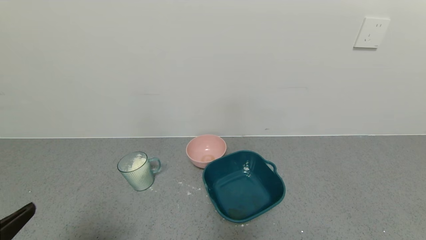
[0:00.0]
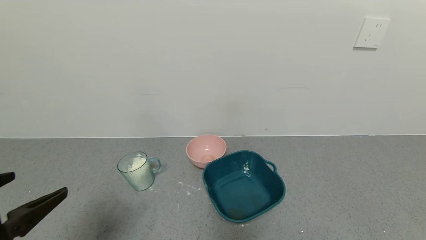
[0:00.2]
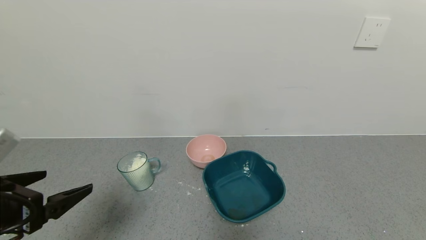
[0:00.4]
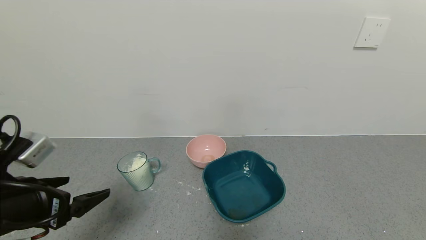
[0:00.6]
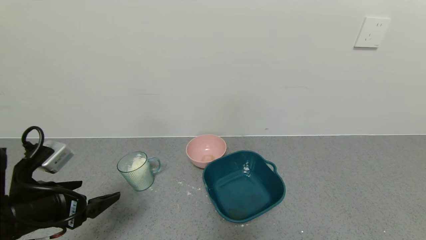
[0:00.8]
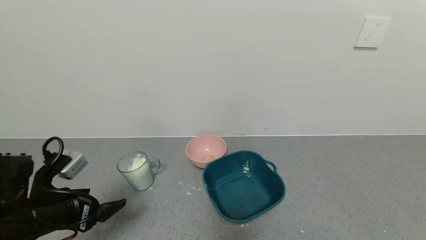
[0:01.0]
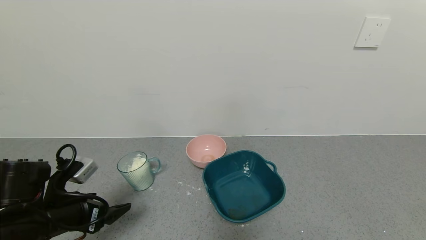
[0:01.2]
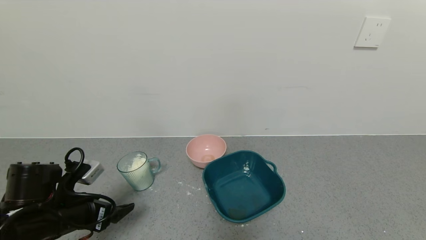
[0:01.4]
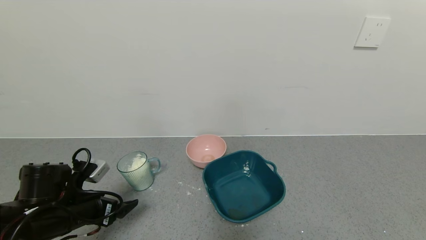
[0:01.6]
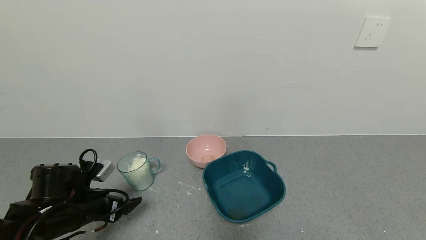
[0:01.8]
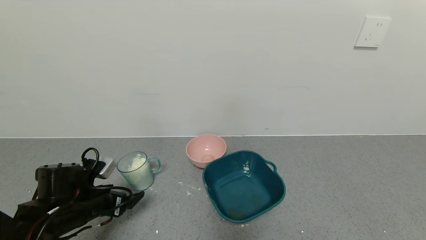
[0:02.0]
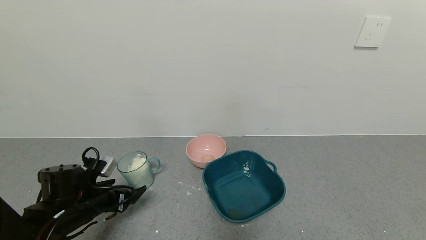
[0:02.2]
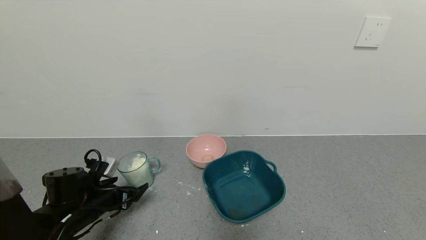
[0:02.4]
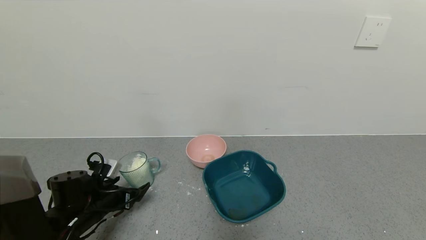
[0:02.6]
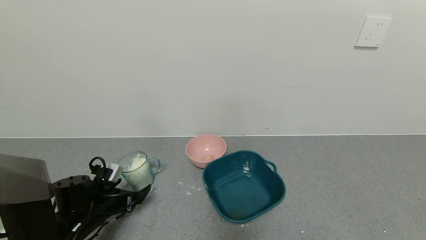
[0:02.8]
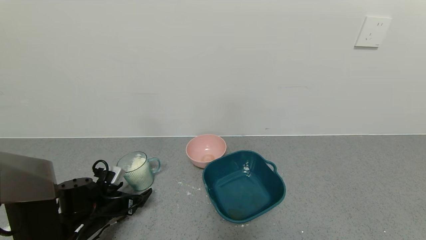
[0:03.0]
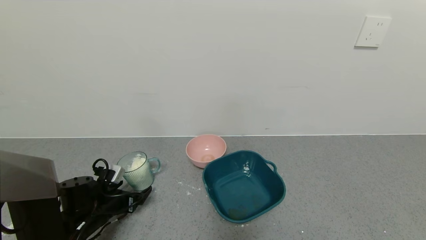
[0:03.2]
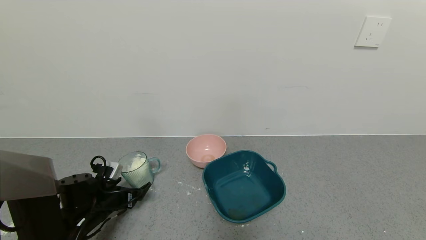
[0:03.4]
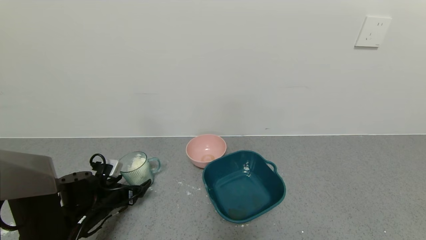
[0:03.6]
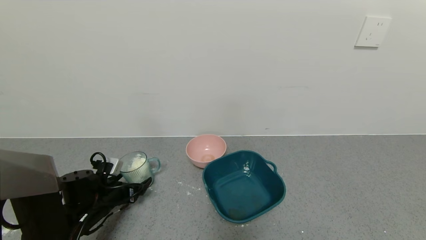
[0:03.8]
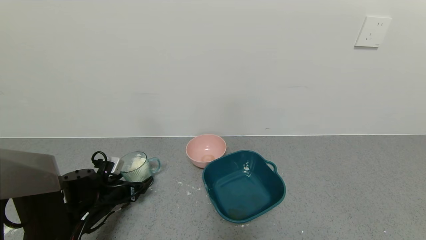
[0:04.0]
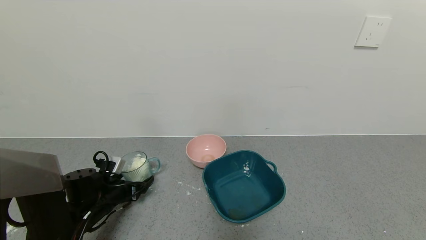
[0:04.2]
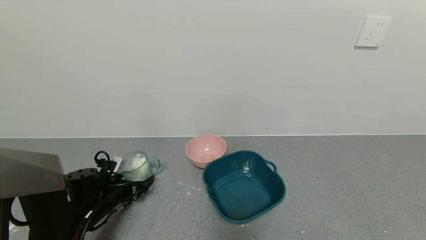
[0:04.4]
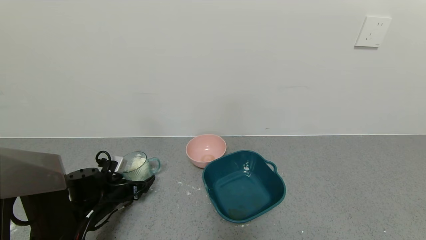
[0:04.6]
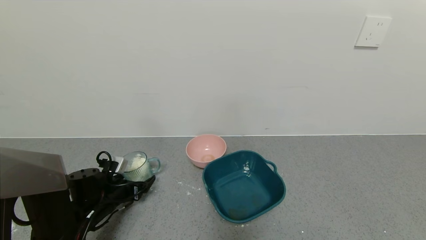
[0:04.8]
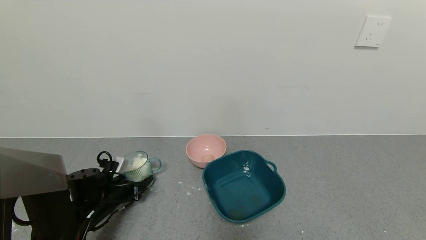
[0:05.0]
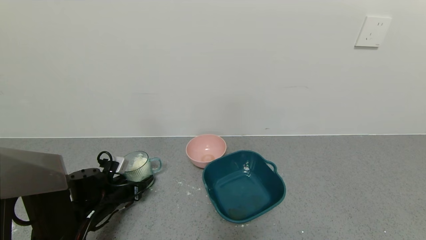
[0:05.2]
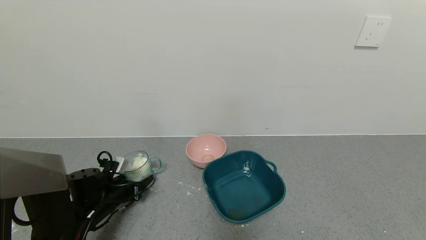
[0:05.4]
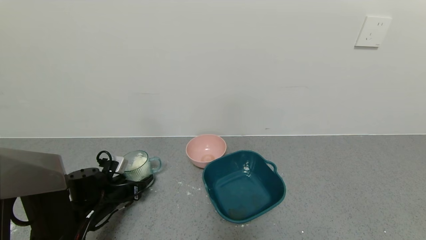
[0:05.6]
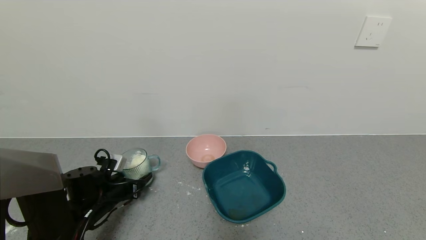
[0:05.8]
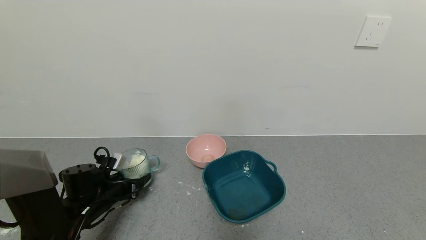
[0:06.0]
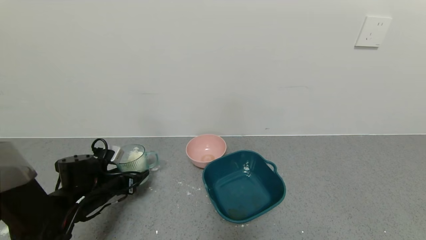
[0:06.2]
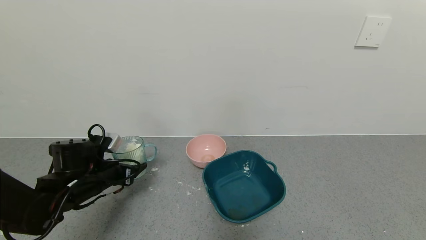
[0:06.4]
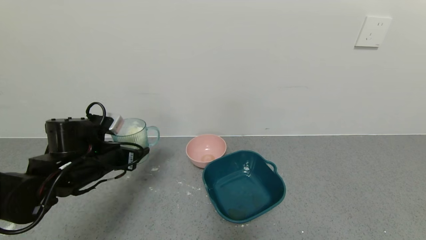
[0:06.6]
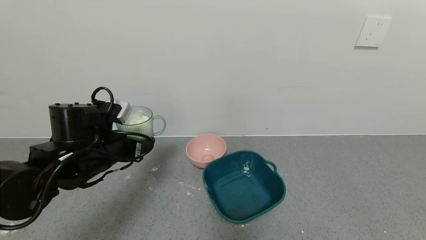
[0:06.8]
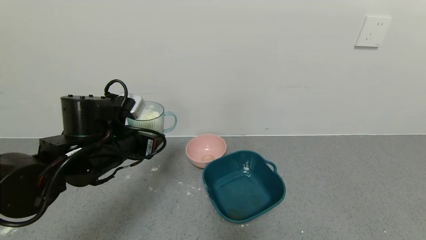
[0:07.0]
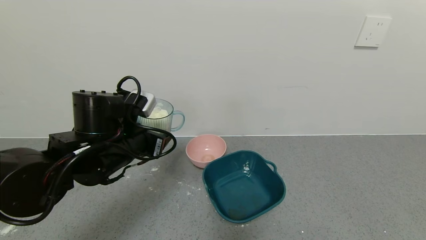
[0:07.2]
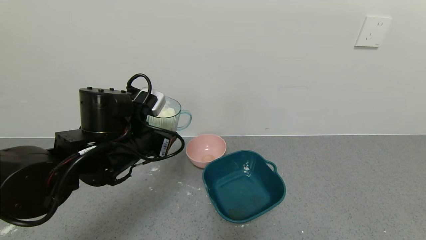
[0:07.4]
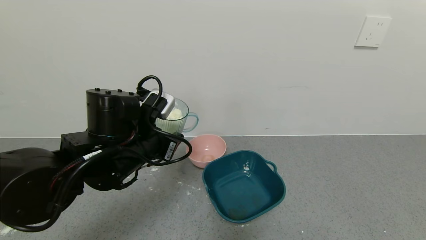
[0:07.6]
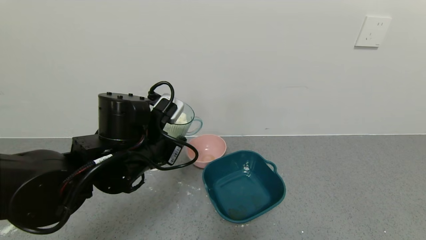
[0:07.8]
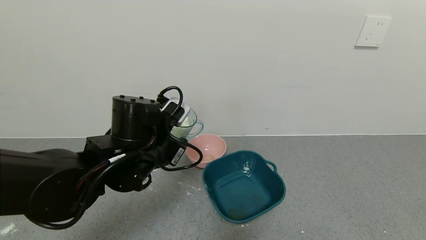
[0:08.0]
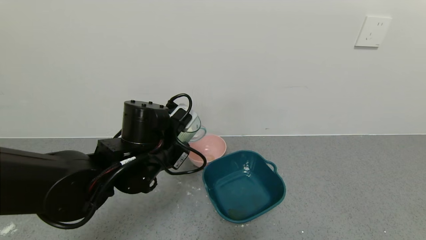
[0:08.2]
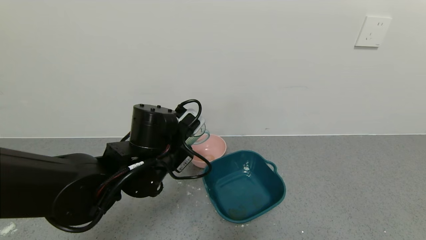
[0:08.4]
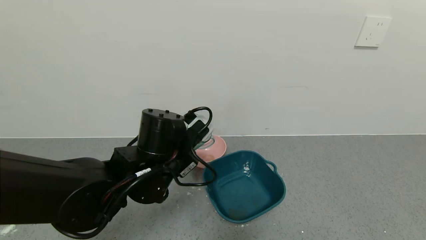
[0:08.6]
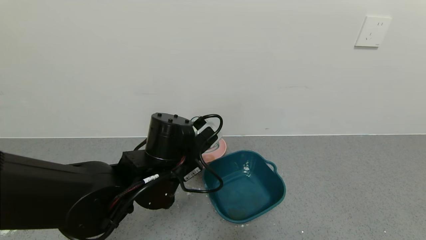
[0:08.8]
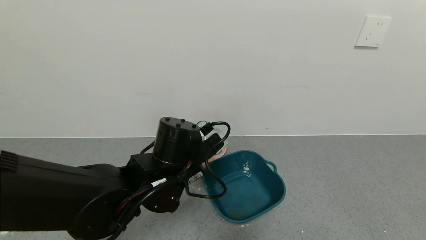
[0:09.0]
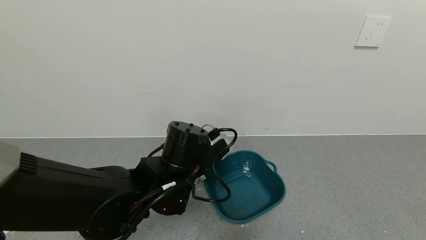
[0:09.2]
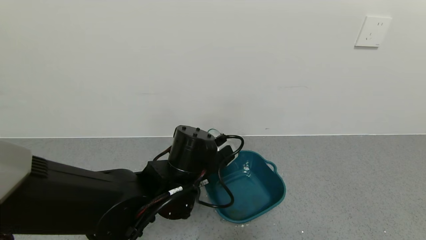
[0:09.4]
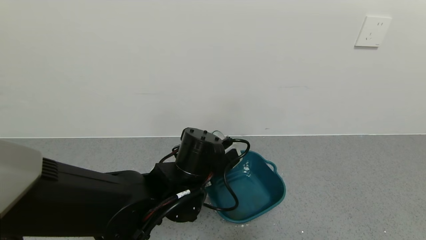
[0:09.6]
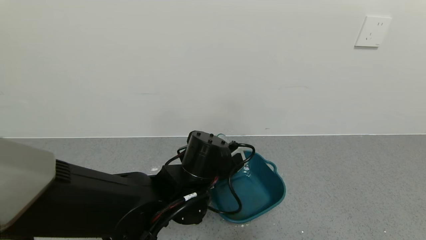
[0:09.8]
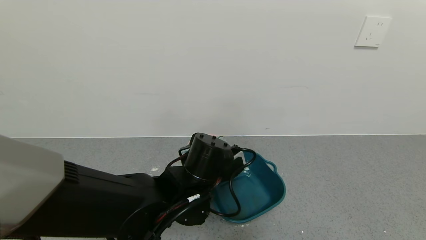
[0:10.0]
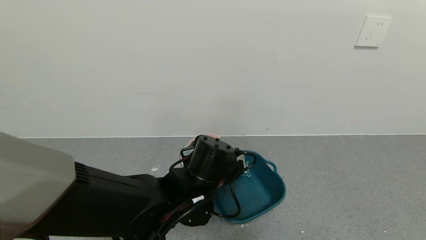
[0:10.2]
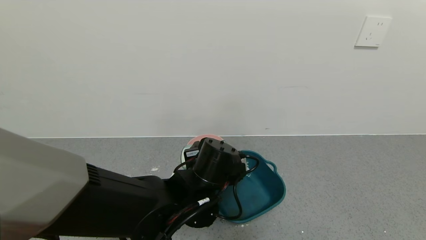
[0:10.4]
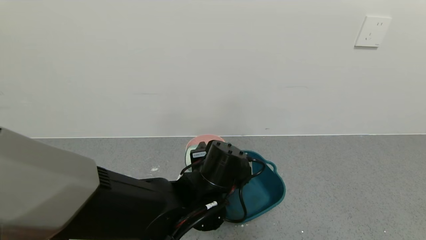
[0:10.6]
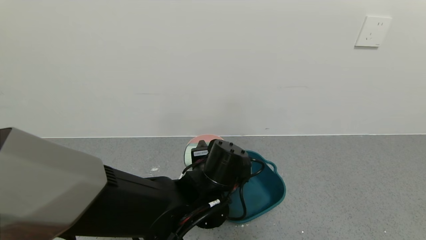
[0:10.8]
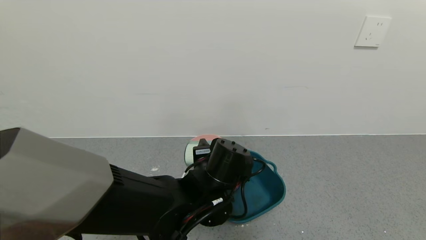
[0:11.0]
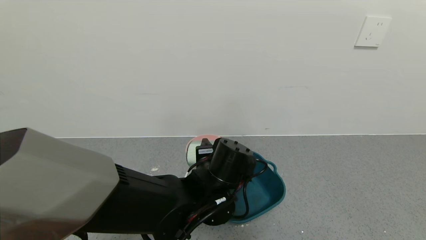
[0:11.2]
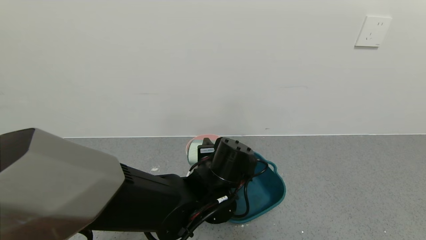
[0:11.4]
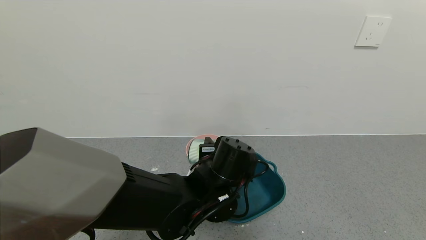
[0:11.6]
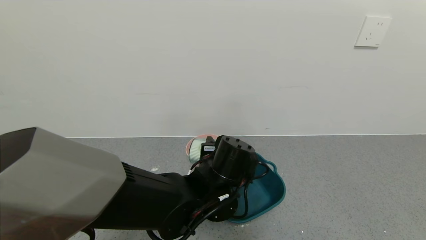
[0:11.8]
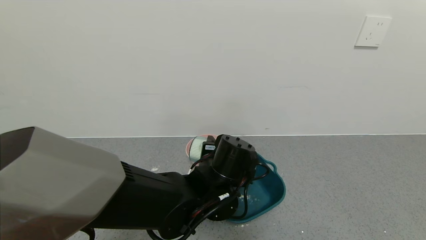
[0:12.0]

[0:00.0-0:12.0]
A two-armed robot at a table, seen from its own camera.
Task of the whole recording: use a gripper to pick up the cup and pour the powder into a bowl or tray.
Step, 0:00.0 to 0:05.2: Grasp the glass of powder with the left gripper.
0:00.0 to 0:01.6: The left gripper moves forward and downward, some 20 cm.
0:01.6 to 0:03.0: The left gripper heads downward, covering about 10 cm.
0:03.0 to 0:04.4: There are only small adjustments of the grippers.
0:04.4 to 0:06.0: The left gripper closes up.
0:06.0 to 0:07.6: The left gripper heads upward and to the right, covering some 25 cm.
0:07.6 to 0:09.0: The left gripper goes roughly 5 cm to the right.
0:09.0 to 0:10.4: The left gripper changes place by about 5 cm.
0:10.4 to 0:12.0: There are only small adjustments of the grippers.

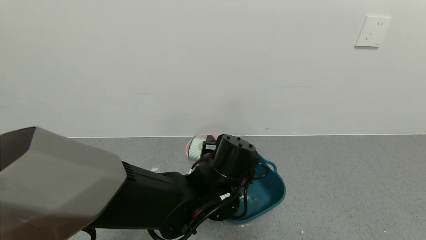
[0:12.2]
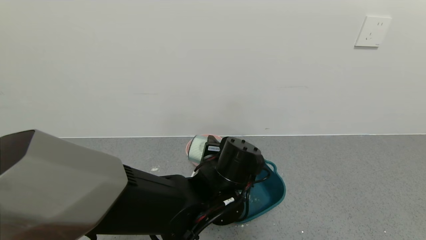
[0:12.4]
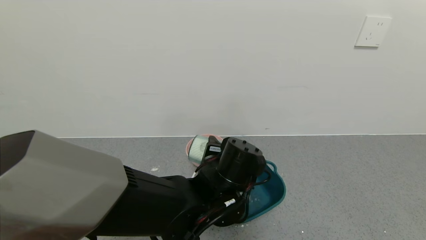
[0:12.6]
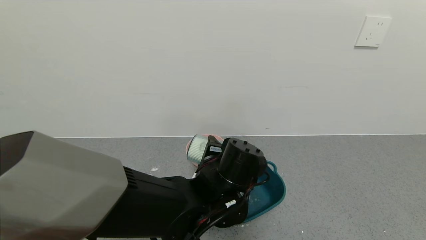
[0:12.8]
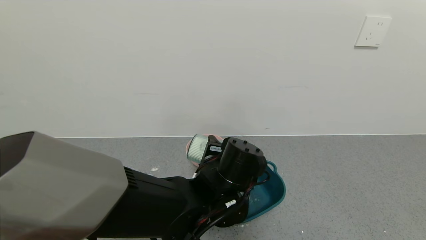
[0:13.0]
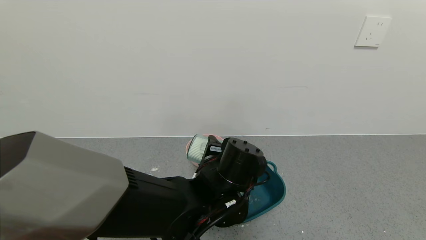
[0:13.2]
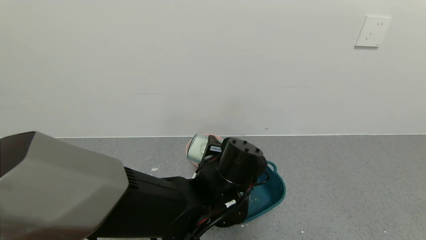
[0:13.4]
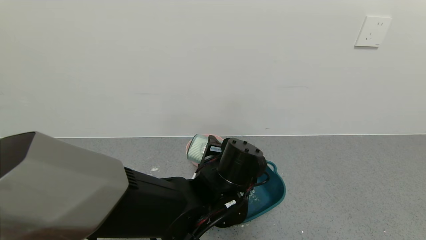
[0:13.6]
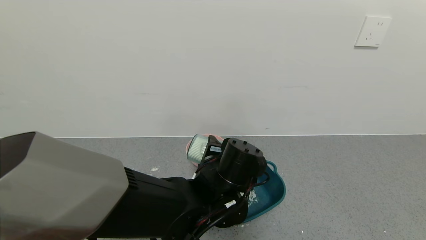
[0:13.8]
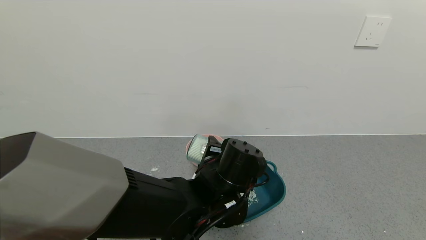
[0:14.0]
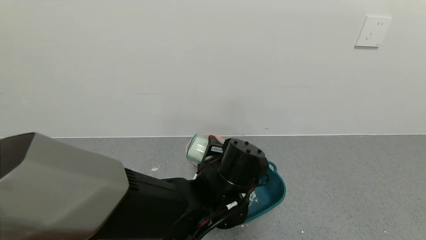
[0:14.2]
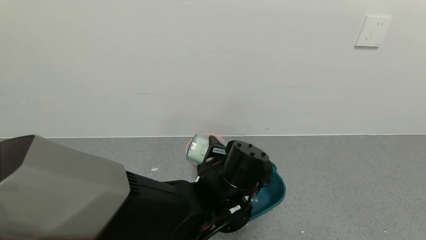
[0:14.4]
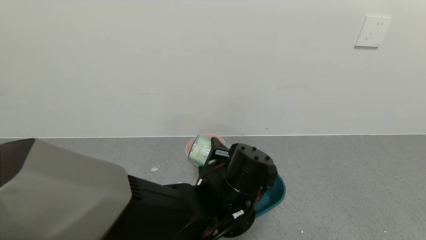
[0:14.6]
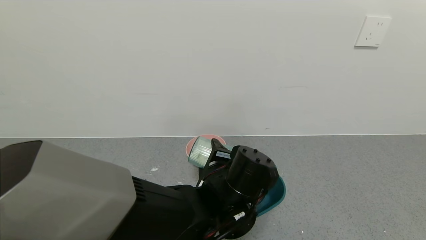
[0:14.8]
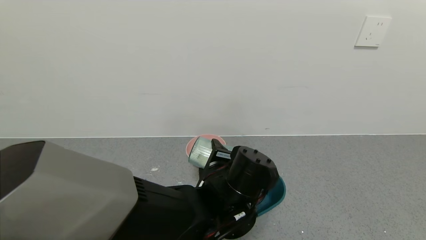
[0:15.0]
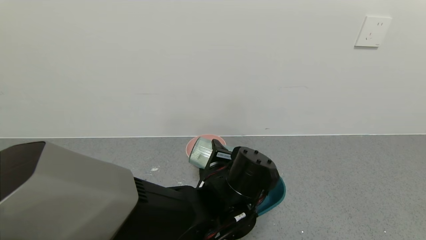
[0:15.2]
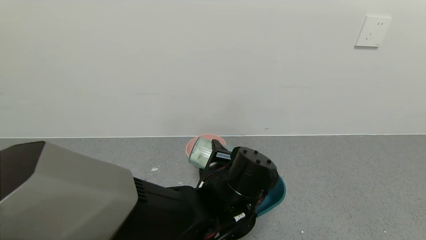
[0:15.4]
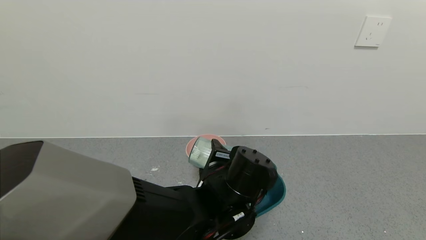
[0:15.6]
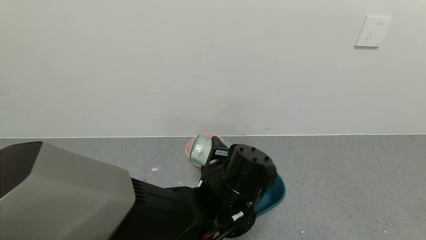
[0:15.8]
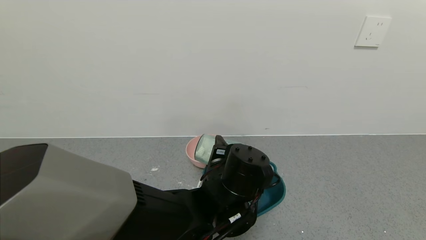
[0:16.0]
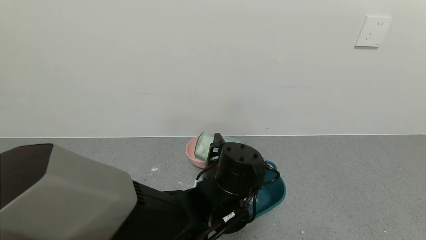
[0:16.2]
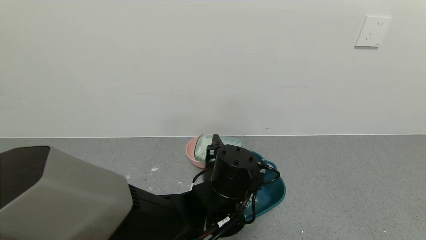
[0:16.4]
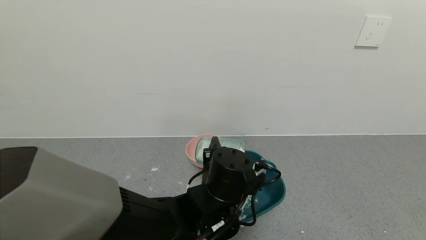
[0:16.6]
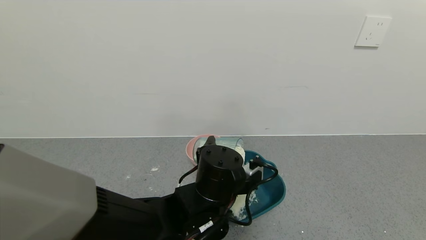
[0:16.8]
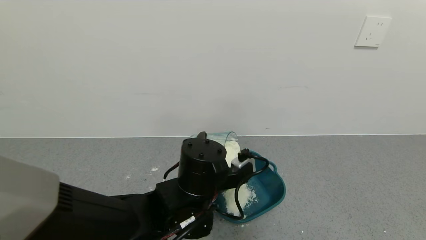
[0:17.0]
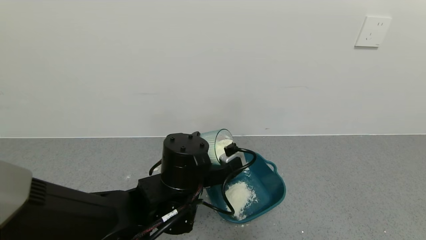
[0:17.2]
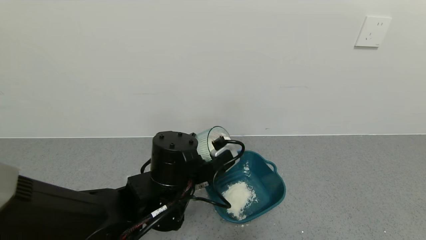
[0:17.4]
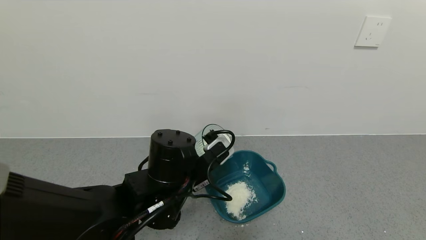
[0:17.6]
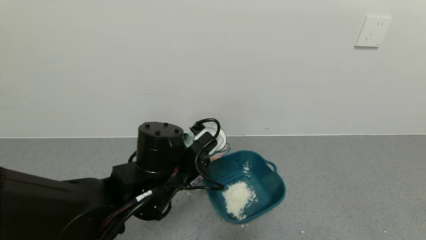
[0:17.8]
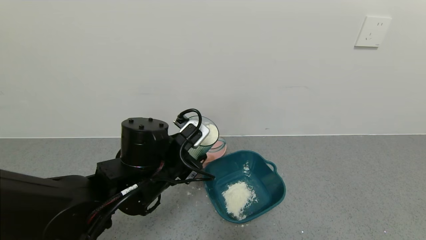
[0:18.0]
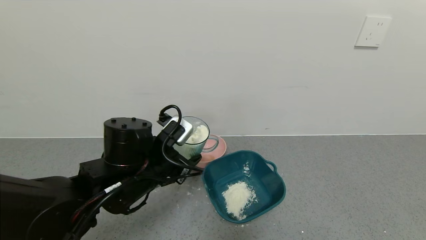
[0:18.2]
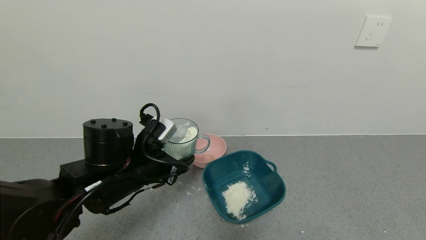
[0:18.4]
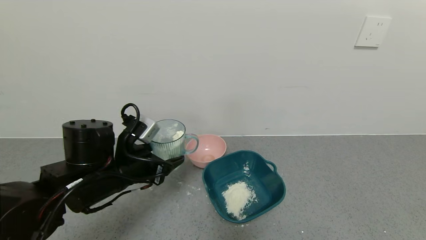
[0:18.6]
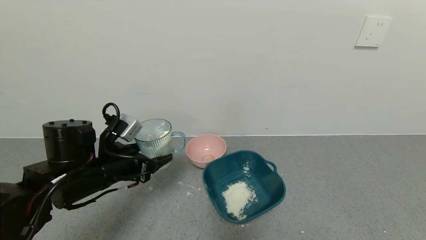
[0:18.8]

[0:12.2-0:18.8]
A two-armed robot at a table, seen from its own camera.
Task of the whole recording: use a gripper to pick up the cup and pour the powder into a bowl or tray.
Step, 0:12.2 to 0:15.8: Pour the powder into the pink bowl with the left gripper.
0:12.2 to 0:15.4: The grippers move only a little.
0:15.4 to 0:17.2: The left gripper moves to the left, some 5 cm.
0:17.2 to 0:18.8: The left gripper goes roughly 15 cm to the left.
